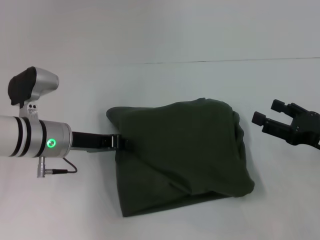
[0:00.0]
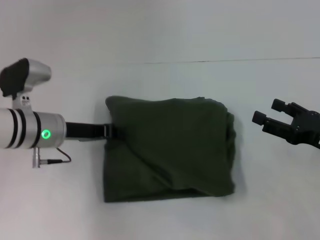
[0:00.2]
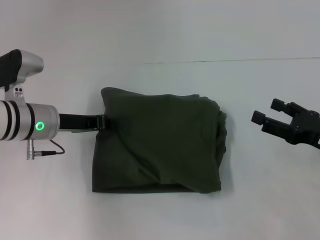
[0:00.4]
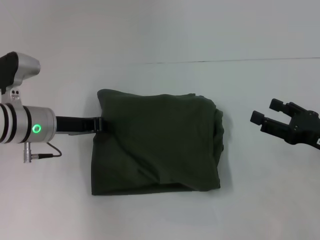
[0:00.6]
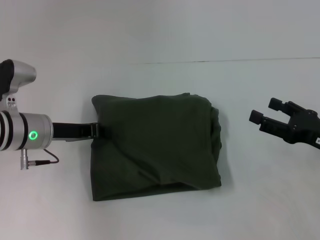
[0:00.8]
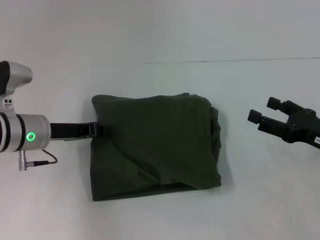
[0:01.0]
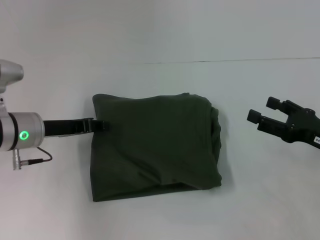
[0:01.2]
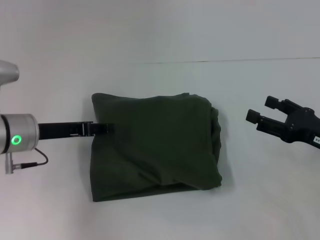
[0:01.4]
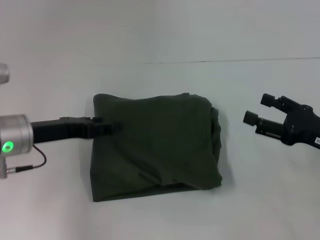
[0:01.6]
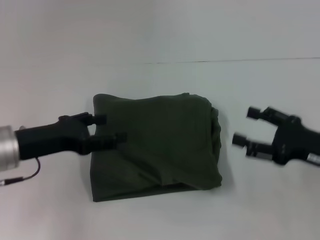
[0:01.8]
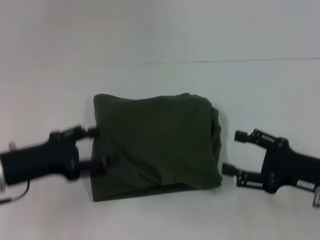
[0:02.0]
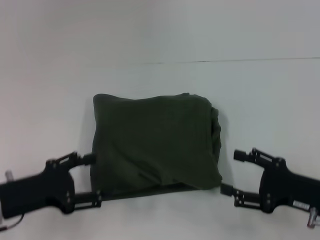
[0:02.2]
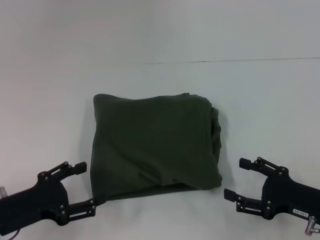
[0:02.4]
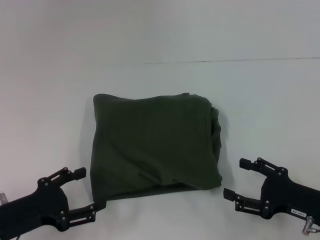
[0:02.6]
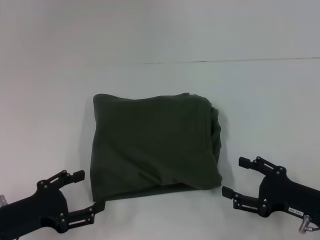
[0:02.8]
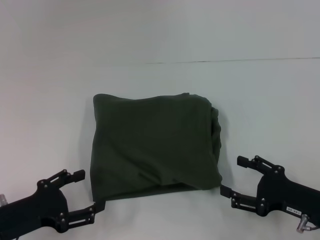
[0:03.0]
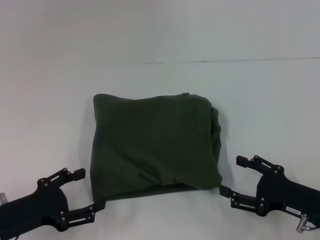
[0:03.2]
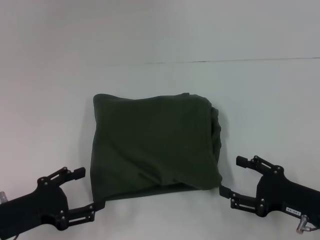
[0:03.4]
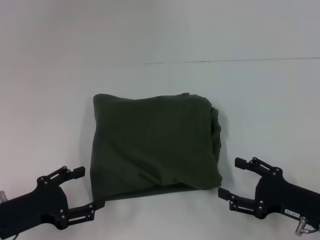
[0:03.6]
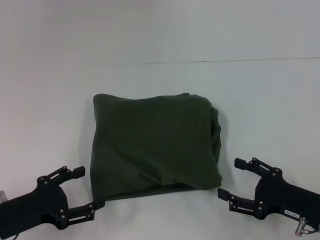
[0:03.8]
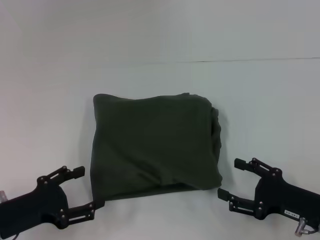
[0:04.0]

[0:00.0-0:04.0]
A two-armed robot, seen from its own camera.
0:01.4 to 0:02.6: The left gripper shifts roughly 15 cm backward and downward, and opens up. Meanwhile the right gripper shifts some 10 cm backward and downward.
0:02.6 to 0:04.0: Both grippers stay about where they are.

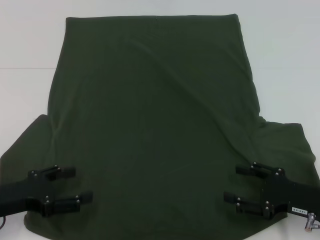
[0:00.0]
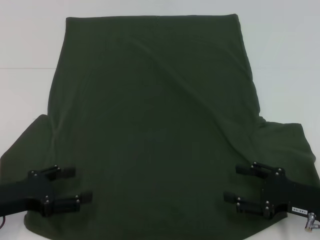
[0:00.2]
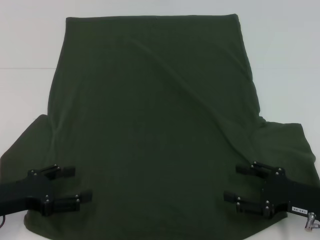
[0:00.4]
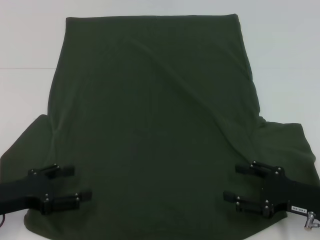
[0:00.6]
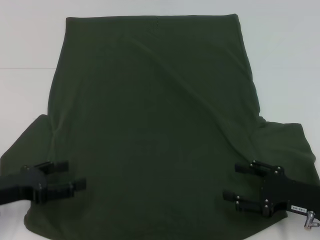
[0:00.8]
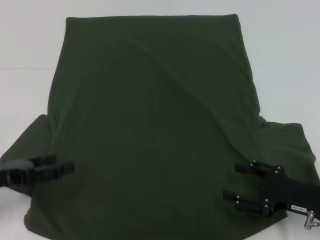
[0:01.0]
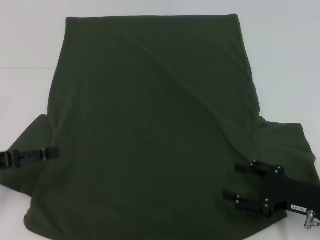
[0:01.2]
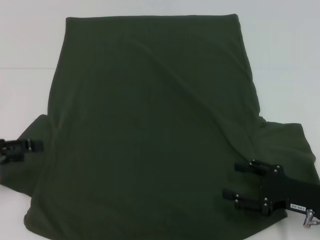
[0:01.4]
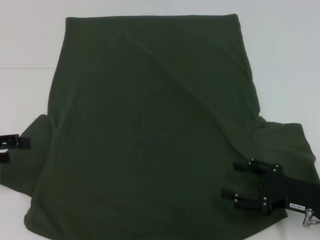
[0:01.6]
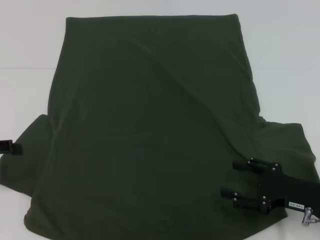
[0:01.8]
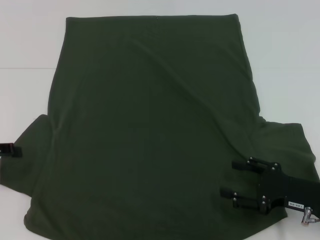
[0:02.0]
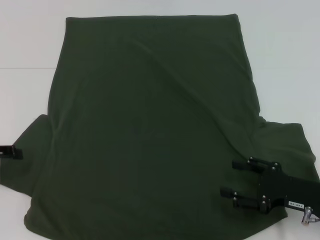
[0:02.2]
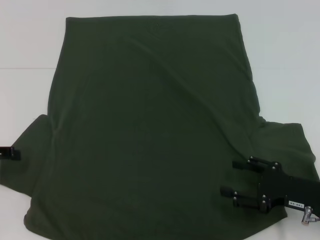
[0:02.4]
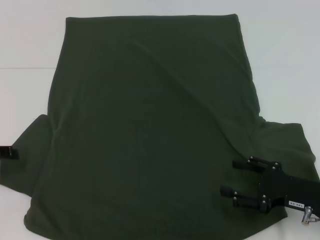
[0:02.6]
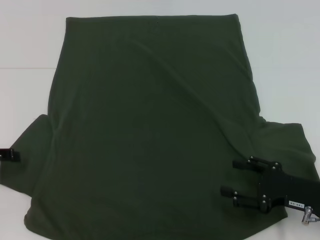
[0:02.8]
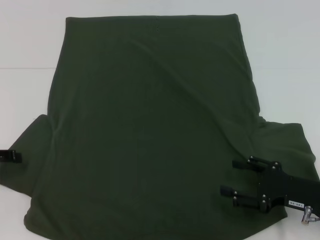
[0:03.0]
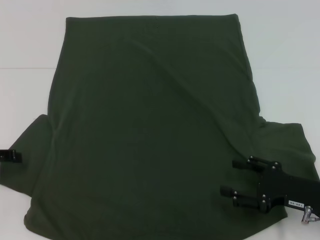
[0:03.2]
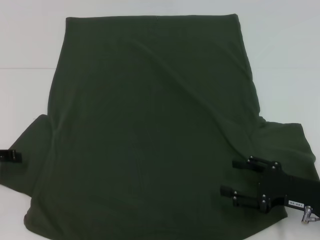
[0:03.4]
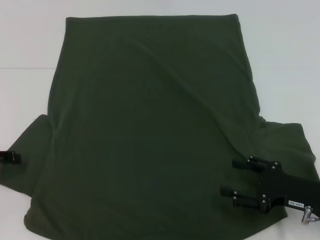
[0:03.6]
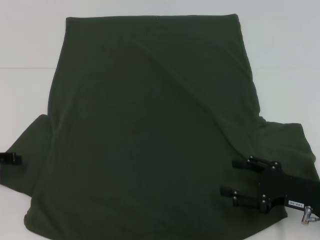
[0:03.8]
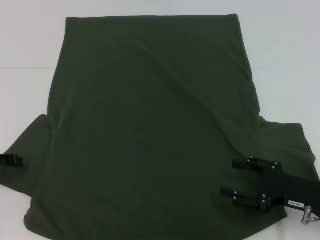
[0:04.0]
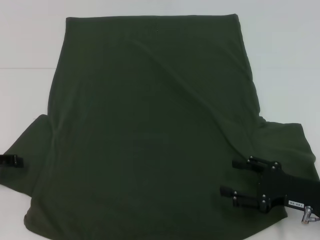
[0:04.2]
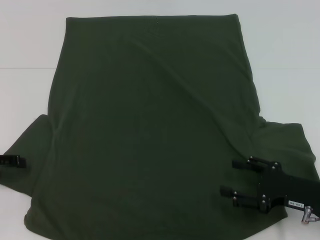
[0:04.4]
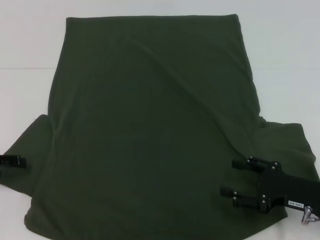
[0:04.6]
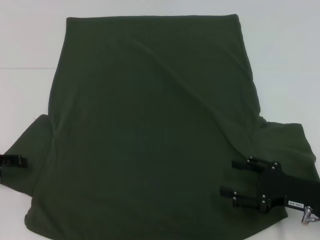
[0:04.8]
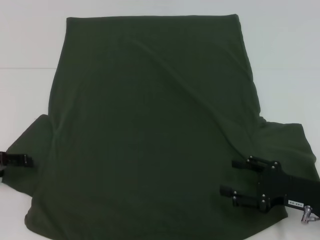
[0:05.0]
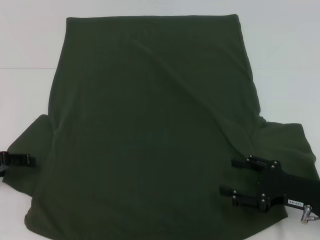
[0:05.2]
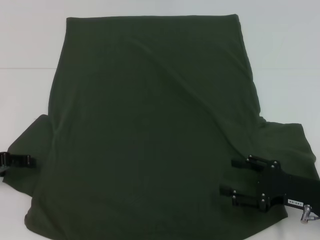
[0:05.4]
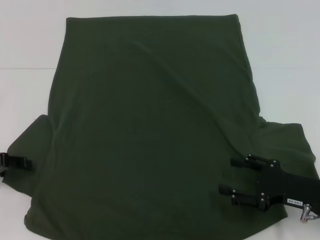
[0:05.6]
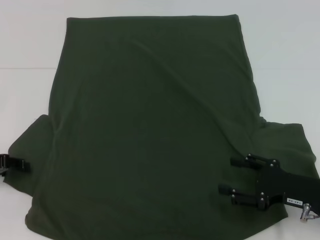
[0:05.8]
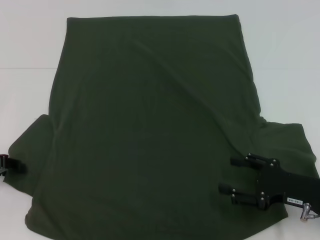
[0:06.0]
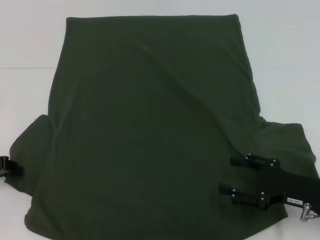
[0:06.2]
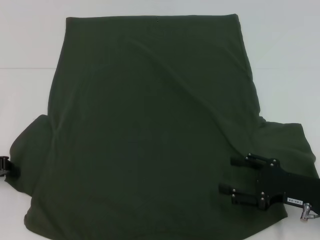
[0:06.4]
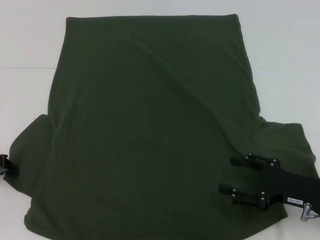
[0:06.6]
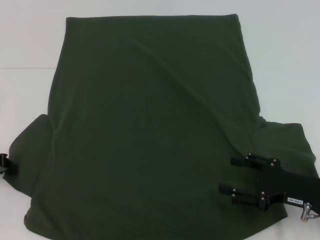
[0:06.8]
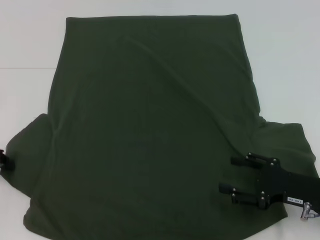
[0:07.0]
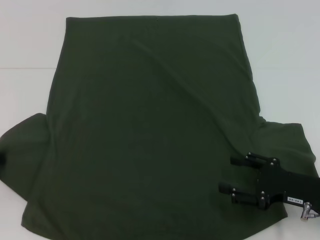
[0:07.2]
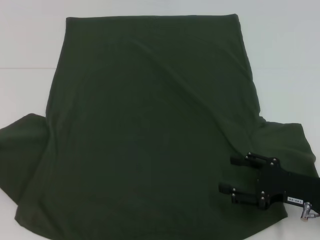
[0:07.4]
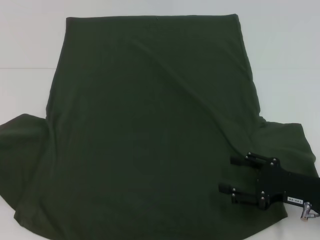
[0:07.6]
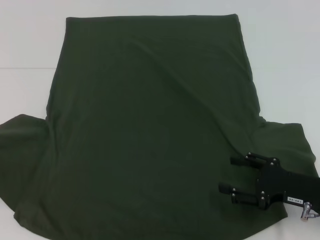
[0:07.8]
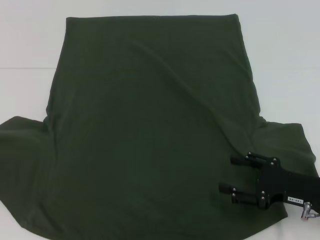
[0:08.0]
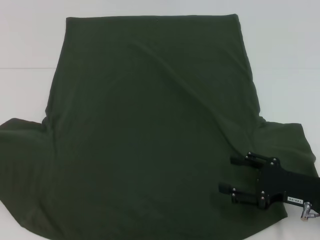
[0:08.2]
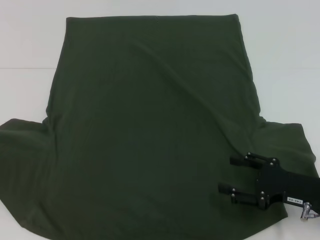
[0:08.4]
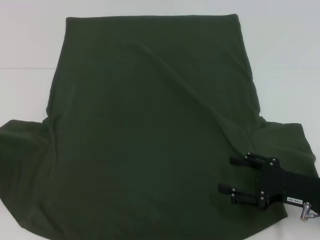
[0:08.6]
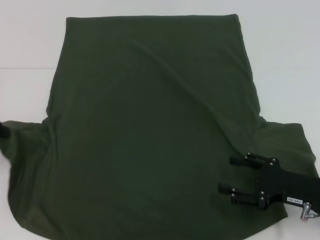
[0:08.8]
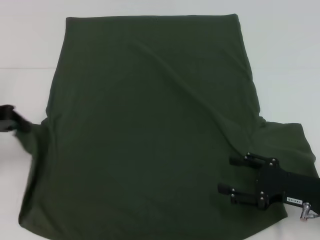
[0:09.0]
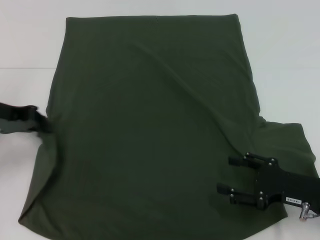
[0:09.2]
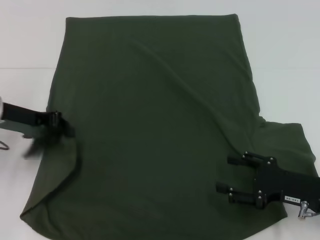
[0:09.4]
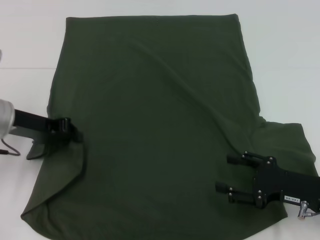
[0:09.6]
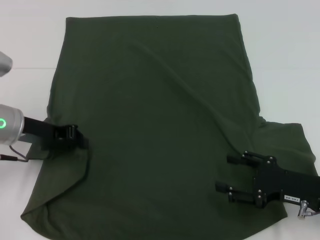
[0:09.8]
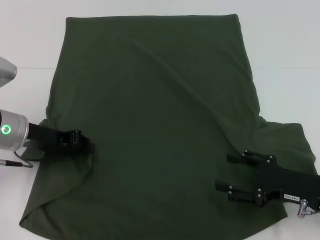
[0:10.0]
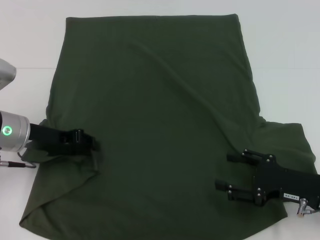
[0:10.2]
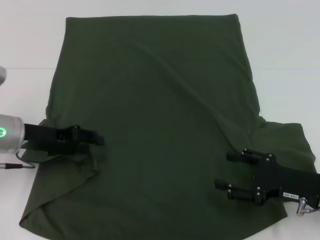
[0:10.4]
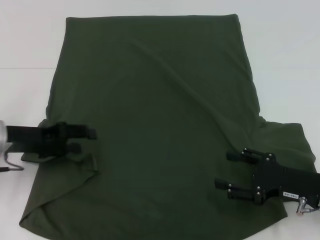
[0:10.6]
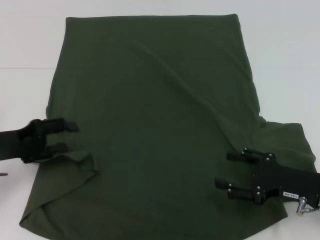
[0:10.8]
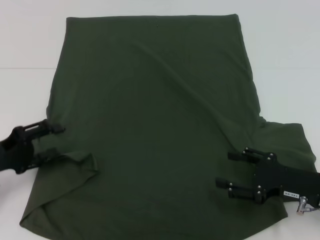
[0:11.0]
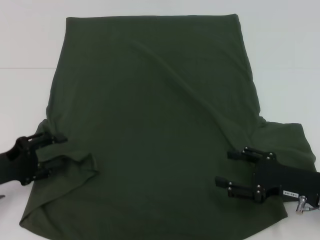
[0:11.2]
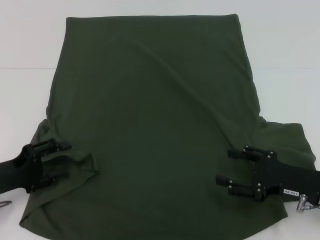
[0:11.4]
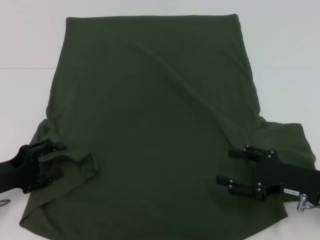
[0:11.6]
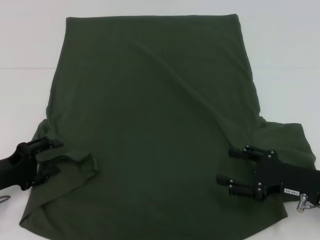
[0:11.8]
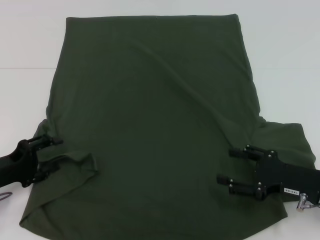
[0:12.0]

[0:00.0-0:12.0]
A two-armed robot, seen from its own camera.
0:00.0 to 0:01.6: The left gripper travels to the left and upward by roughly 10 cm.
0:01.6 to 0:03.0: The grippers make only small movements.
0:03.0 to 0:04.4: Neither gripper changes place.
0:04.4 to 0:06.0: The grippers stay close to where they were, moving slightly.
0:06.0 to 0:07.6: The left gripper changes place by some 5 cm, and closes.
0:07.6 to 0:09.0: The left gripper shifts about 5 cm to the right.
0:09.0 to 0:10.4: The left gripper heads to the right and downward, covering about 10 cm.
0:10.4 to 0:12.0: The left gripper is displaced backward, downward and to the left by approximately 10 cm, and opens up.

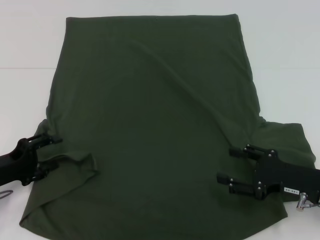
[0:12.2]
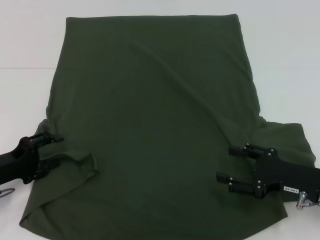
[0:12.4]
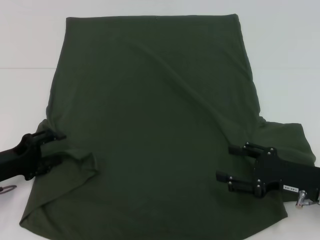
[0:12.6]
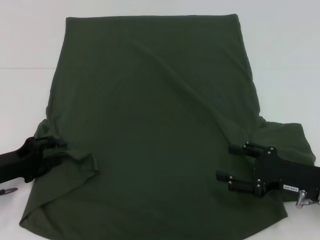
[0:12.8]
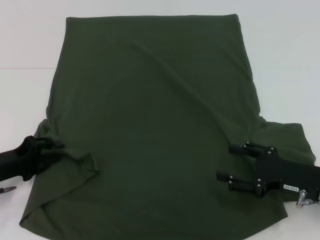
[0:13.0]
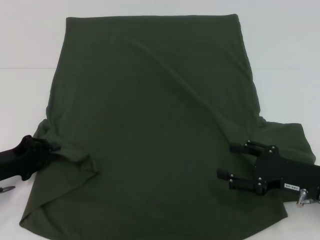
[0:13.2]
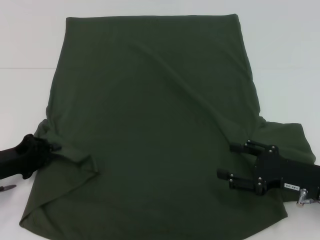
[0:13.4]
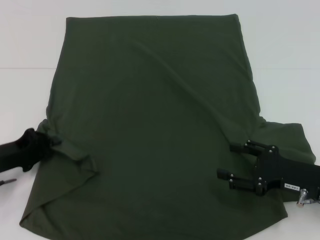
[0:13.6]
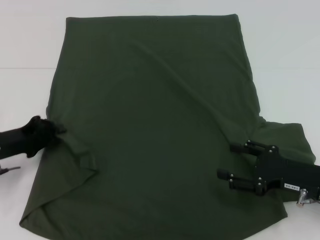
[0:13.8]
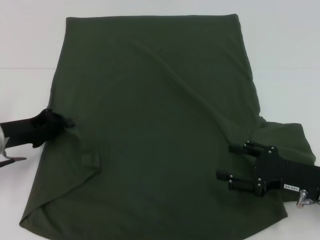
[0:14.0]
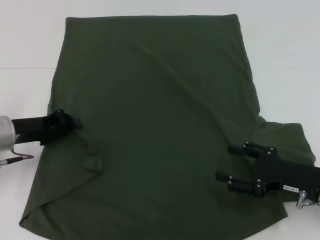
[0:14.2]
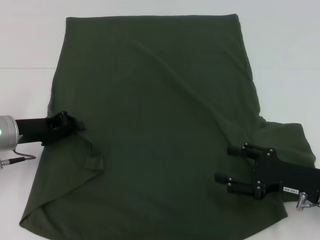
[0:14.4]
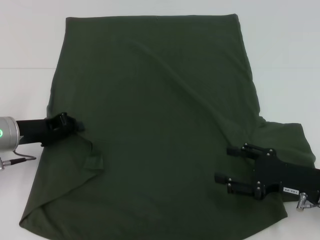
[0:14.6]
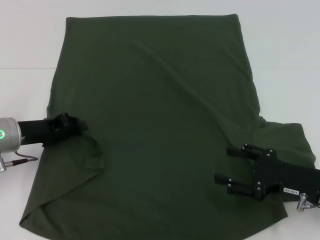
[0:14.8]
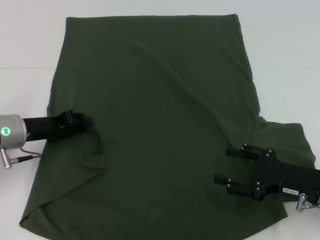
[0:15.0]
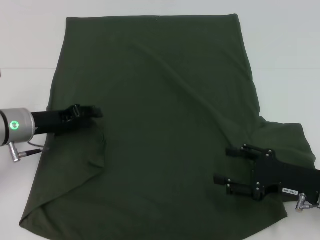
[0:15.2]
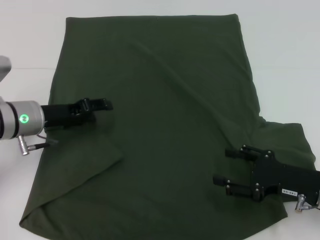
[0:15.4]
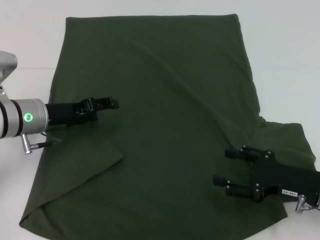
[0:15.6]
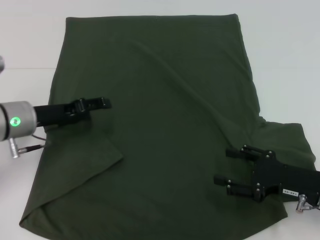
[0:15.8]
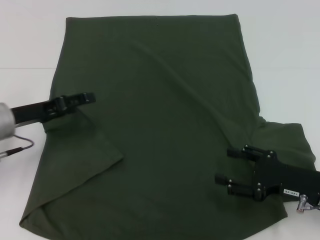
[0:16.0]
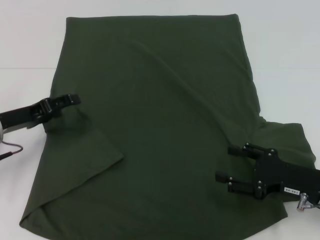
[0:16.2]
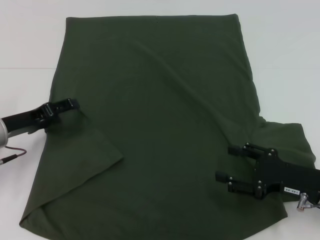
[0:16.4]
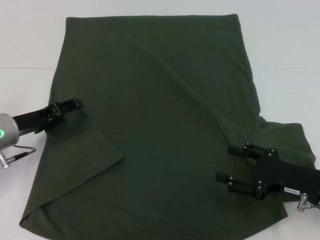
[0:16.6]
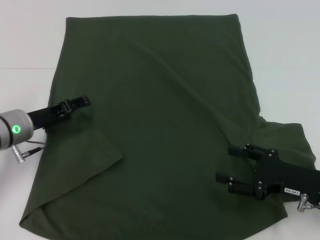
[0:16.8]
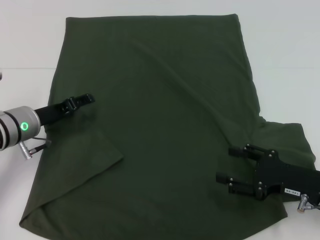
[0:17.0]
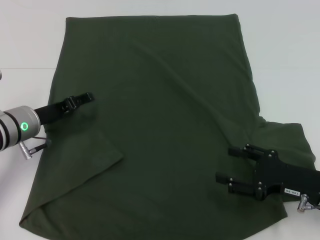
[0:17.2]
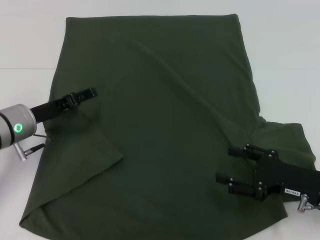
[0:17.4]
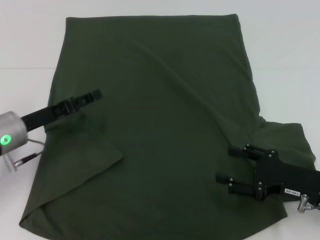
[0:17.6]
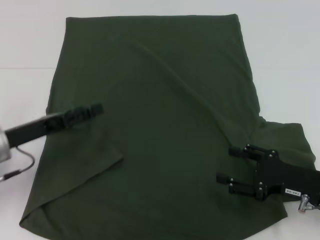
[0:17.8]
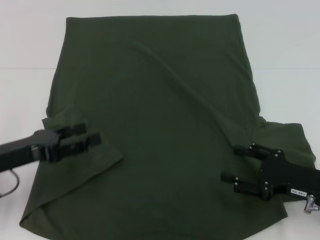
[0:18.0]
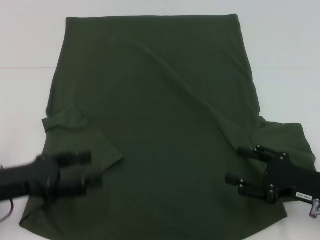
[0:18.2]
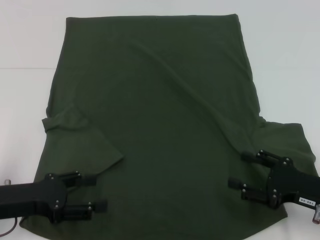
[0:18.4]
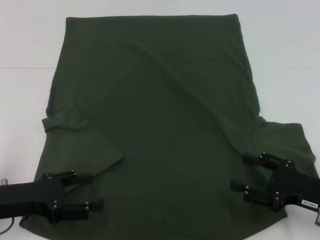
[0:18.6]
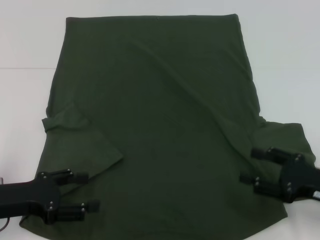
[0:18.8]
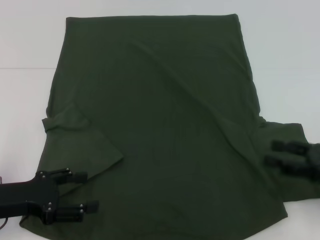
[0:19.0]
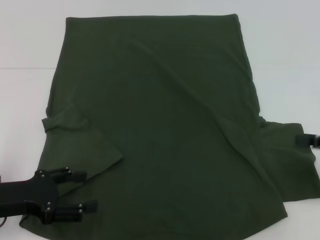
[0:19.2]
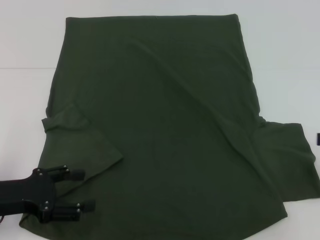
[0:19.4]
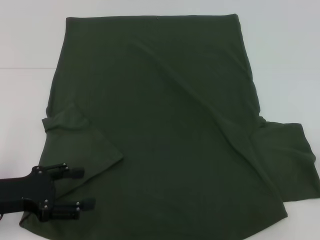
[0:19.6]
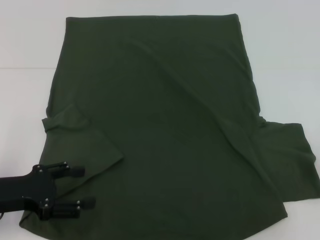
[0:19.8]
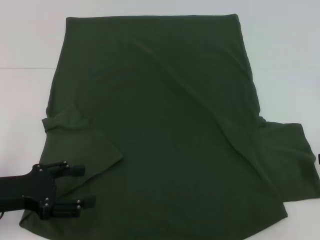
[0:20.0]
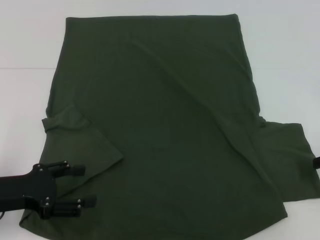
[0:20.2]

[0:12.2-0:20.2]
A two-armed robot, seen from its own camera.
Step, 0:12.2 to 0:15.4: Fold the bottom left sleeve with your left hand.
0:12.2 to 0:13.8: The left gripper ends up approximately 5 cm from where it was, and closes up.
0:13.8 to 0:15.4: The left gripper heads to the right and forward, covering roughly 10 cm, and opens.
0:15.4 to 0:17.0: The left gripper opens its fingers.
0:17.0 to 0:18.6: The left gripper shifts roughly 15 cm backward.
0:18.6 to 0:20.2: The right gripper travels upward, to the right and forward by roughly 15 cm.
